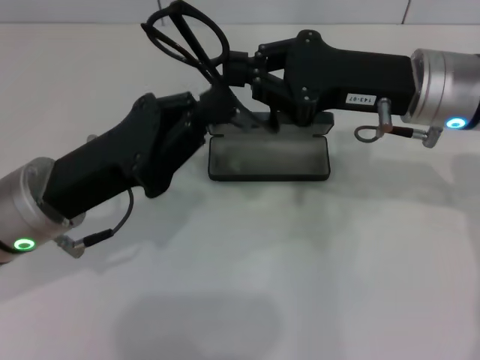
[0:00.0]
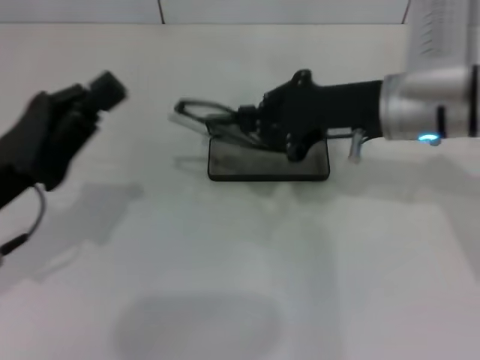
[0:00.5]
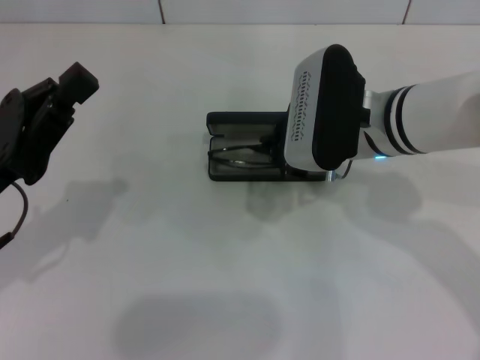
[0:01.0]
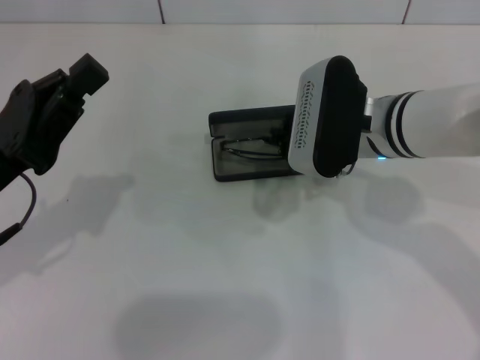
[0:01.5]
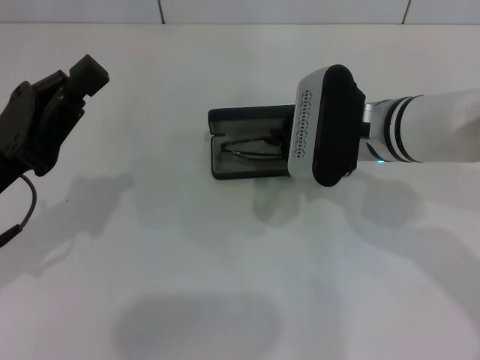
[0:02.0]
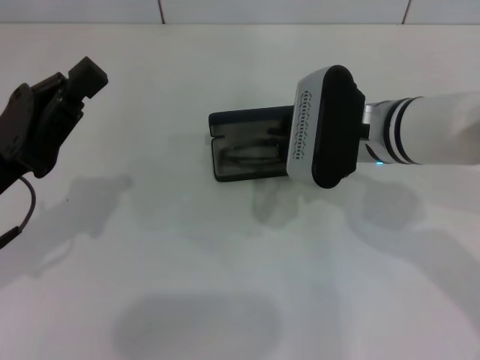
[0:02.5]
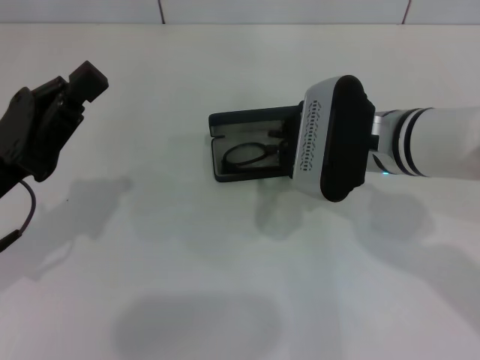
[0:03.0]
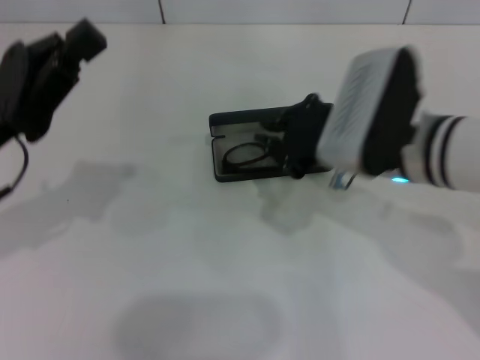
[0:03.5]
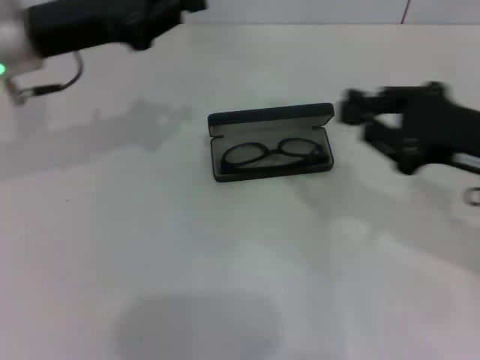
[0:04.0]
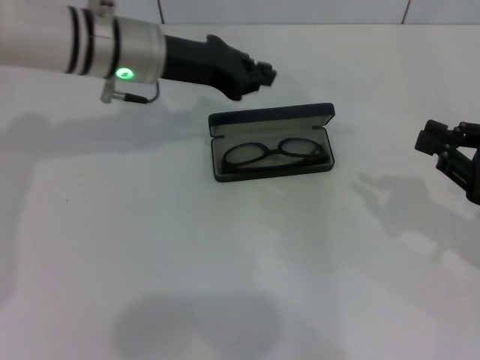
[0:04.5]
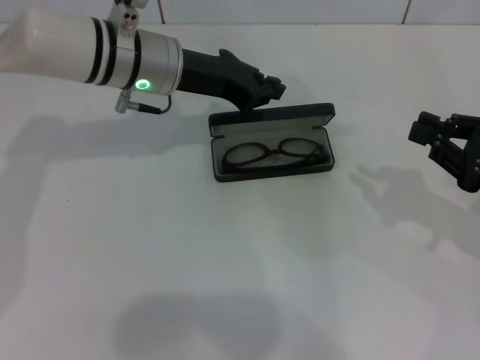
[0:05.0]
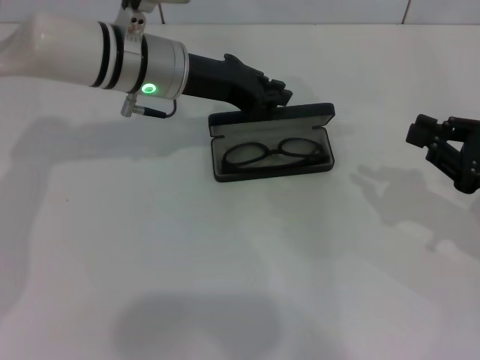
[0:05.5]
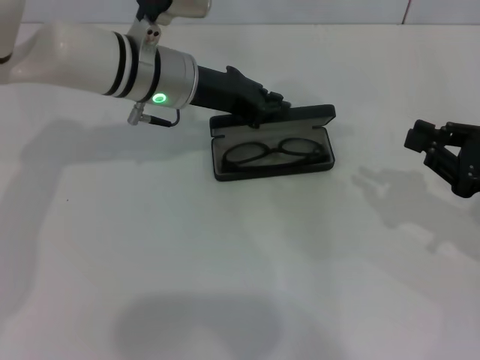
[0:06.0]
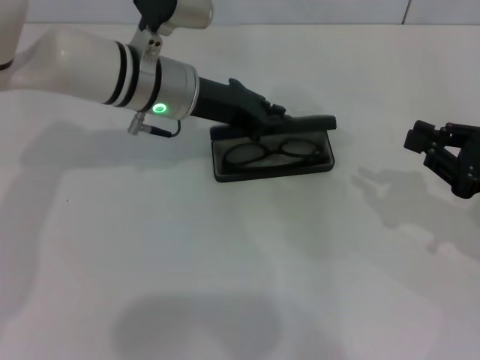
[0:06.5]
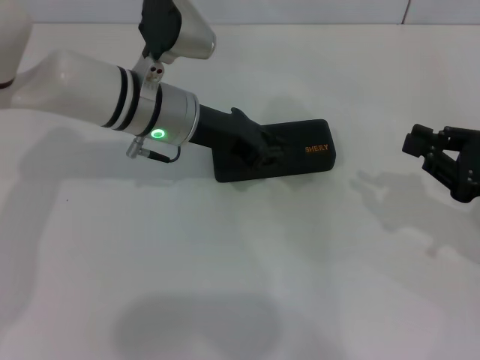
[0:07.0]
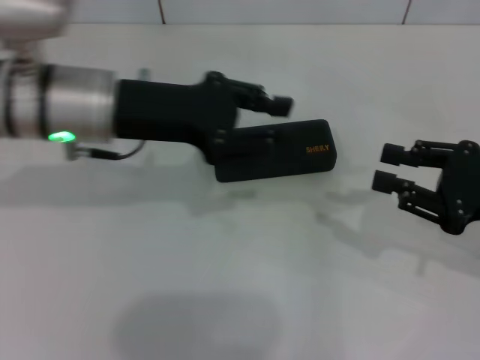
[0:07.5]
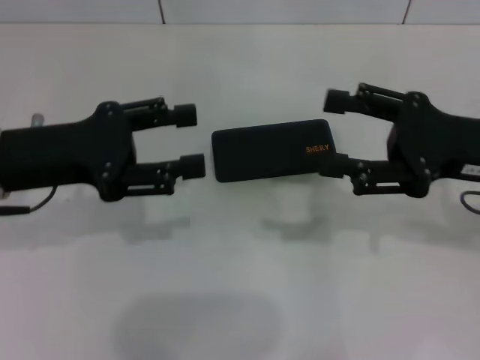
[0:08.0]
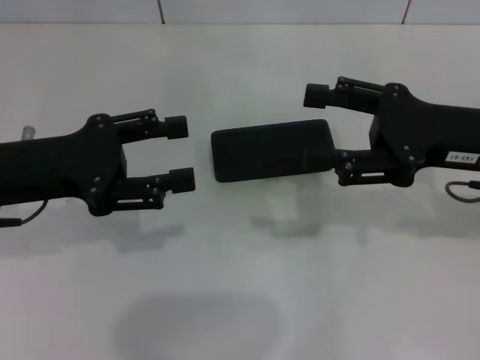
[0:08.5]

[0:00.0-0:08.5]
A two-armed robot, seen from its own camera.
Step, 0:00.0 to 0:02.5: Put the glasses into the case with your right hand.
Step, 0:03.0 to 0:06.5: Close the glasses case with your left hand.
0:00.0 to 0:02.0: The right gripper heads to the left and downward, covering about 10 cm. Meanwhile the left gripper travels to the left by roughly 5 cm.
0:02.0 to 0:04.0: The left gripper heads forward and upward, covering about 15 cm; the right gripper travels to the right and backward by some 15 cm.
0:04.0 to 0:06.5: The grippers both shift to the right and downward by about 10 cm.
0:06.5 to 0:08.5: The left gripper goes approximately 20 cm to the left and backward, and opens, while the right gripper shifts about 10 cm to the left and upward, and opens up.
